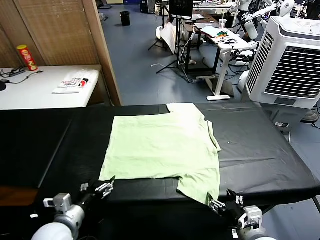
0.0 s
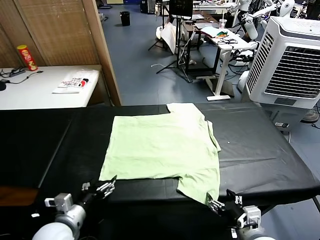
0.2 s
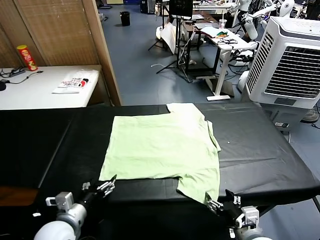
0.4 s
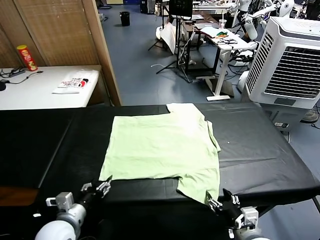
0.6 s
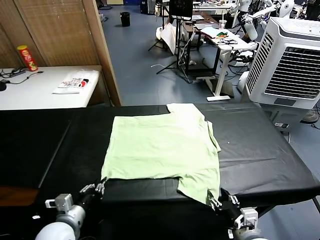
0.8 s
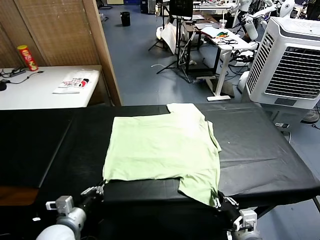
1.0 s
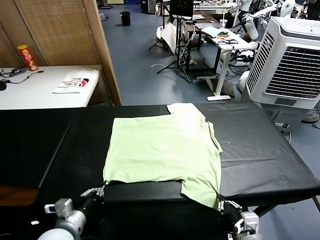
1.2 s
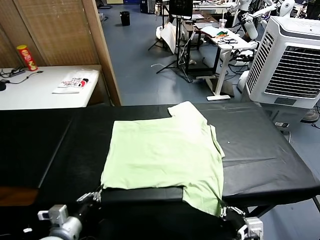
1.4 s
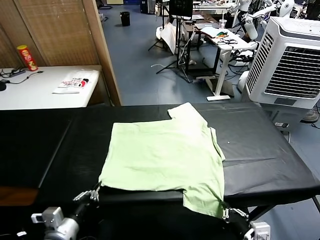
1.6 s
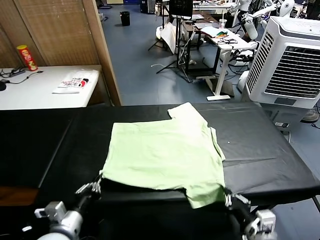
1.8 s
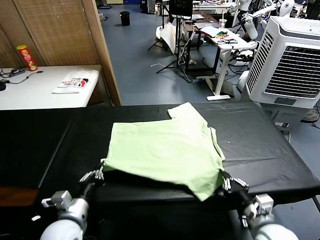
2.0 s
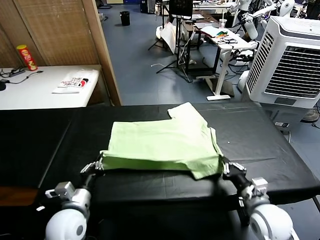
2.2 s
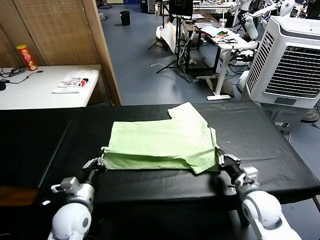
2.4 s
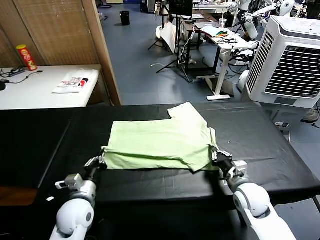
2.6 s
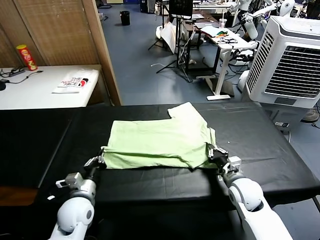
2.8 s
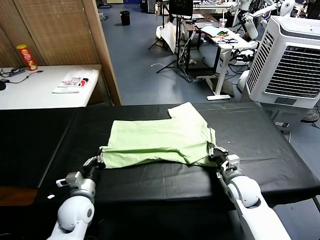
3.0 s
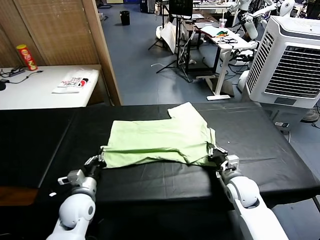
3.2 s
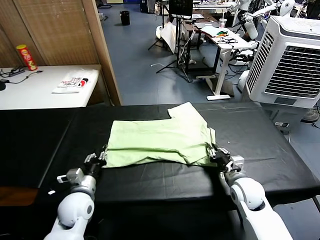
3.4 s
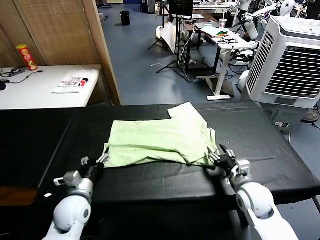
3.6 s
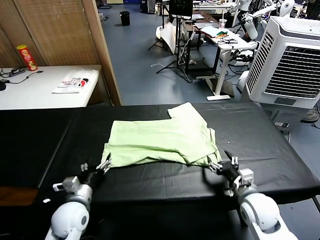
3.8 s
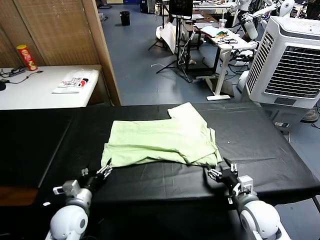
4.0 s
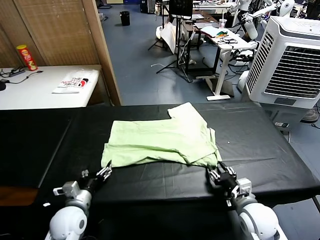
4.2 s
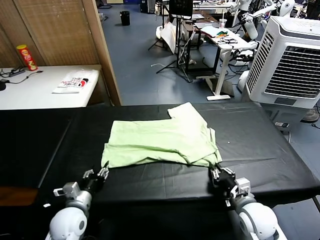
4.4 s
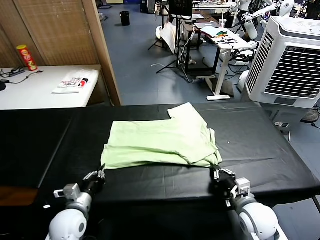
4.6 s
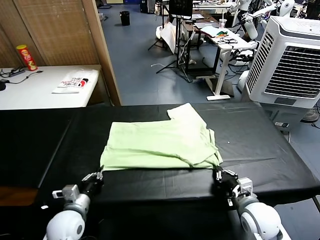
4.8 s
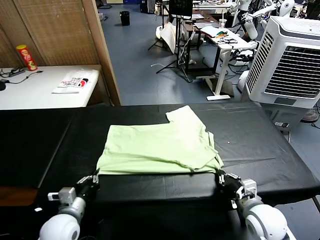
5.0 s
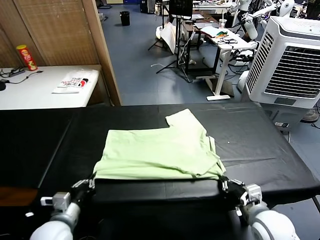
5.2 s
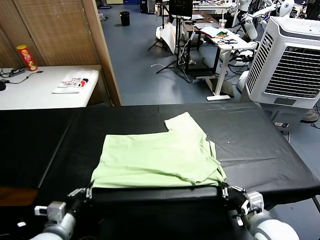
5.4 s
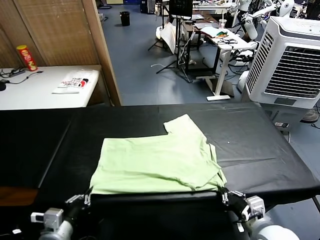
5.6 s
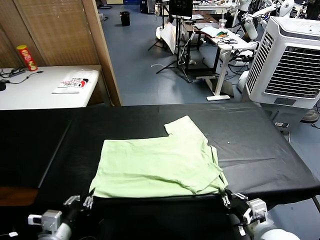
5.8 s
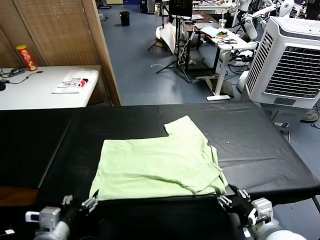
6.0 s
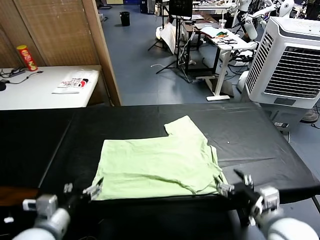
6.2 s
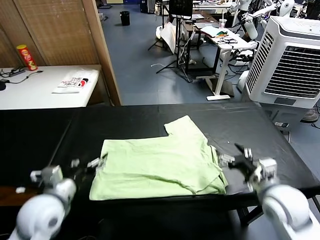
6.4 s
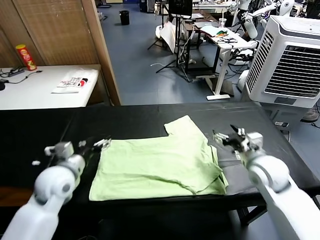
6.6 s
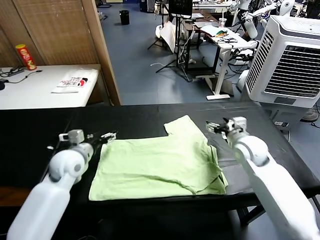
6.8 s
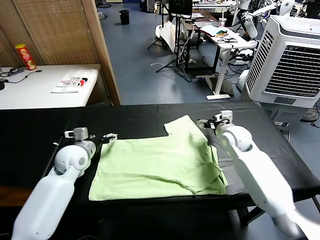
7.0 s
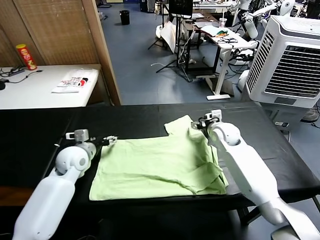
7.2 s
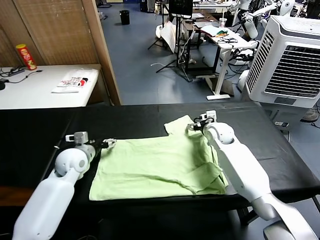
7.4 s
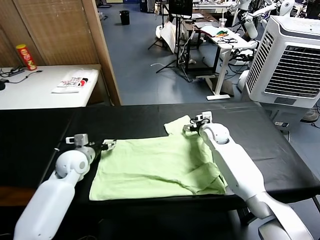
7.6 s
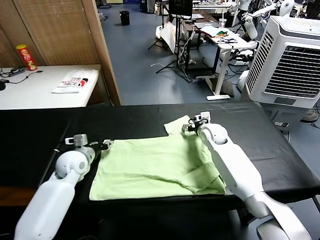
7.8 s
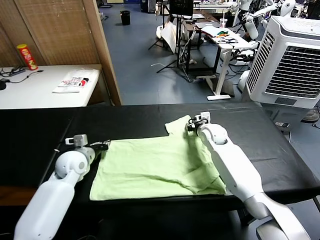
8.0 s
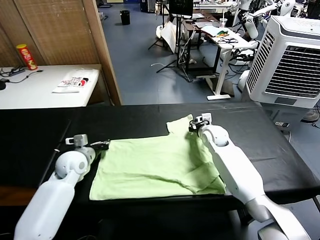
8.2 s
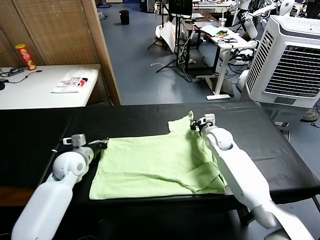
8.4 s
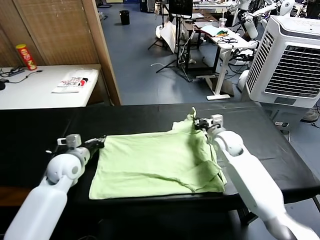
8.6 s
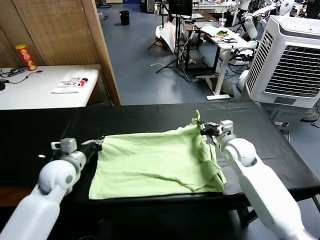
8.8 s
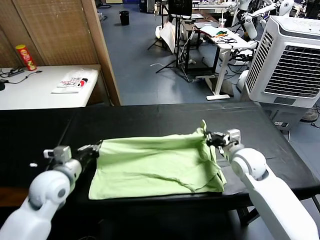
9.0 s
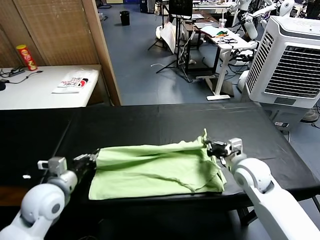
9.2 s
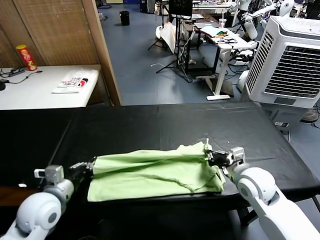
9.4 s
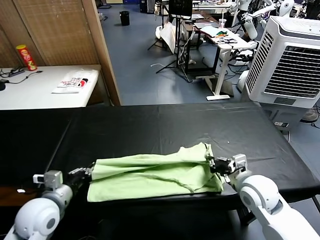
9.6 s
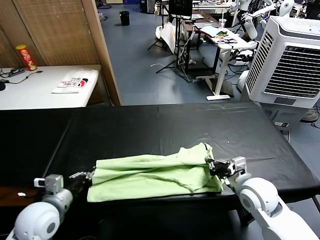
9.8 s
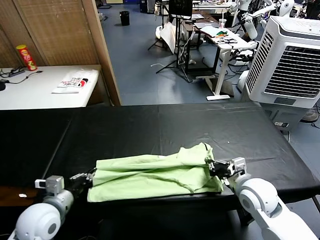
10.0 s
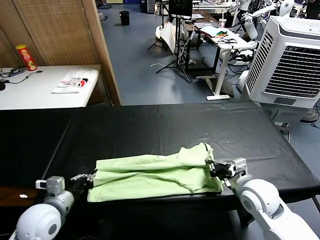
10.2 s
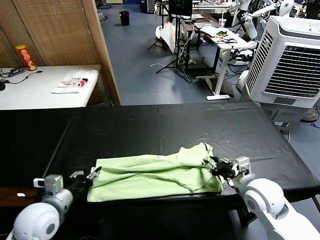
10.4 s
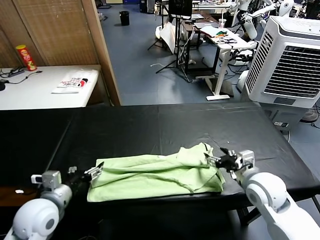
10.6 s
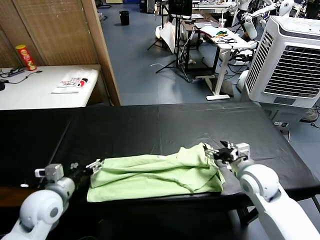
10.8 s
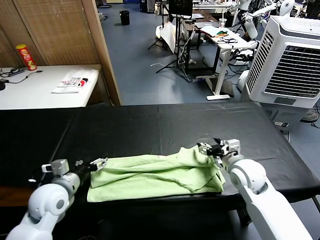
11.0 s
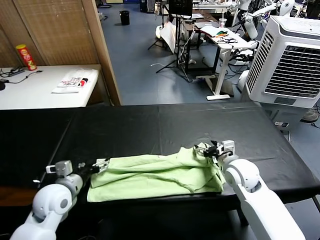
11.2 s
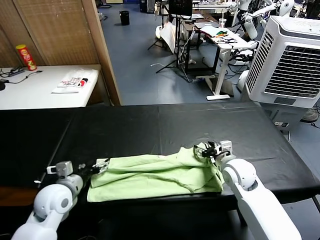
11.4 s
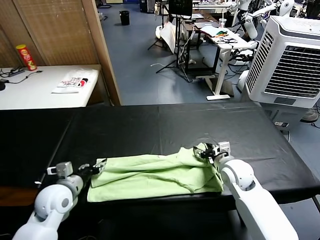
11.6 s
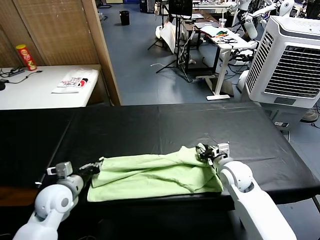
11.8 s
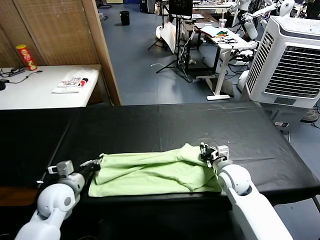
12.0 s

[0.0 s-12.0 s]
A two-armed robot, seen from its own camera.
Task of the whole recording: fold and organize the clothes.
Step, 0.0 to 1.0 s: use both grippers simultaneously to clamp the lower edge of the clothing fabric.
Step, 1.2 to 3.6 s: use both grippers to drag the lower edge of the fabric forward and fold it over the upper edge.
Step, 3.8 to 6.0 s: Drag the clothes downward with both gripper.
Step, 6.2 to 8.0 s: use both grippers simultaneously to clamp the upper edge of the clothing fabric.
Step, 8.2 to 10.4 s: use both grippers to drag the upper edge of the fabric backward and fold it over the lower edge.
1.6 to 3.0 s: The left gripper heads forward and downward, covering approximately 15 cm. The right gripper heads forward, covering some 20 cm.
3.0 to 4.4 s: The left gripper opens its fingers; the right gripper moves backward, some 10 cm, and opens and closes again.
4.4 to 6.0 s: The grippers both shift upward and backward by roughly 15 cm. The right gripper opens, while the left gripper opens.
6.0 to 7.6 s: Both grippers move forward, about 30 cm.
7.6 to 9.0 s: The right gripper heads backward, covering approximately 20 cm, and closes up; the left gripper goes some 15 cm backward and upward, and closes its fingers.
9.0 to 10.4 s: The two grippers go some 5 cm backward. The left gripper opens up. Meanwhile the right gripper opens.
10.4 to 12.0 s: The right gripper is displaced downward and forward by about 10 cm, and closes its fingers. The left gripper heads forward and downward, covering roughly 10 cm, and closes its fingers.

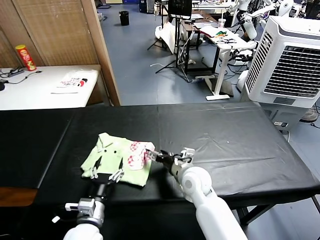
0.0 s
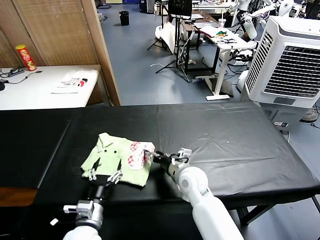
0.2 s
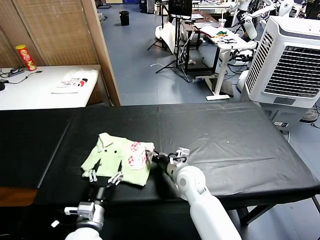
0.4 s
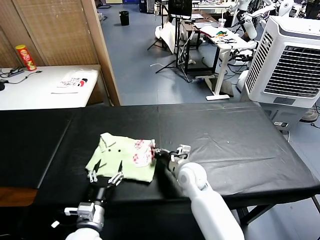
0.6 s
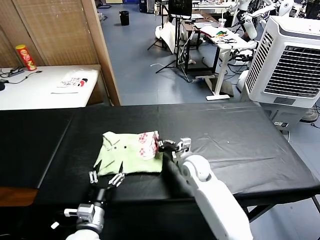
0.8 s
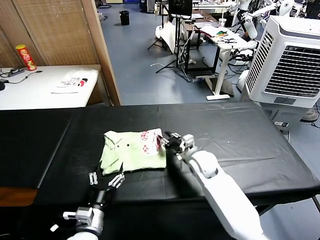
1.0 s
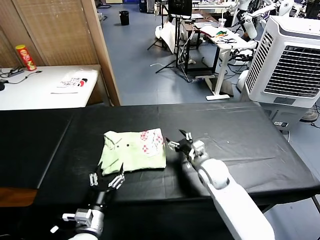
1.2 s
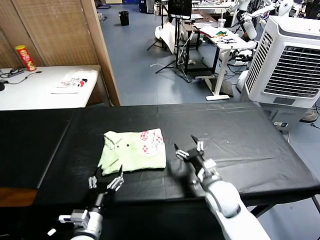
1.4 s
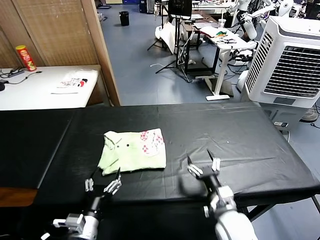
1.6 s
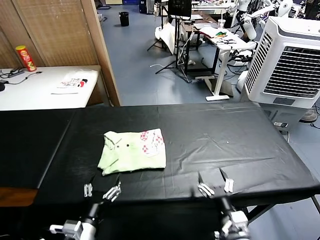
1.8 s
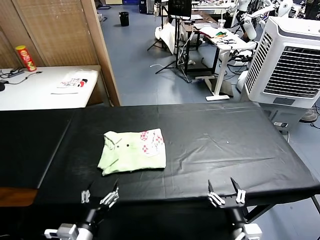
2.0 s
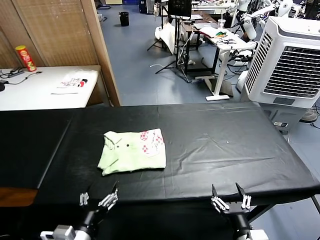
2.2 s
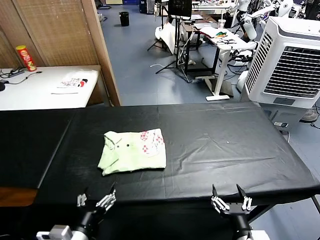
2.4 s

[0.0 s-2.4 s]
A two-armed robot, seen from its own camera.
Task of the whole recording: fold and organize the clothes.
Step, 0.0 to 1.0 s: Drag the clothes to the center of the table.
0.0 to 1.2 s: The right gripper travels to the right by about 5 cm, and closes, then opens again.
1.2 to 2.4 s: The left gripper goes about 10 cm backward and upward. The right gripper shifts some 30 cm backward.
